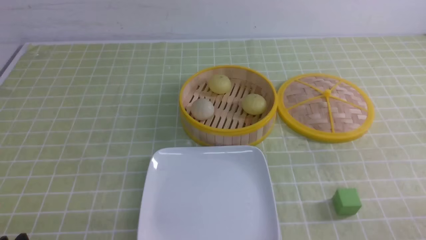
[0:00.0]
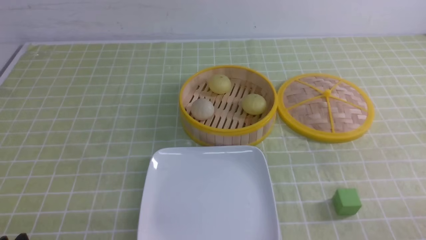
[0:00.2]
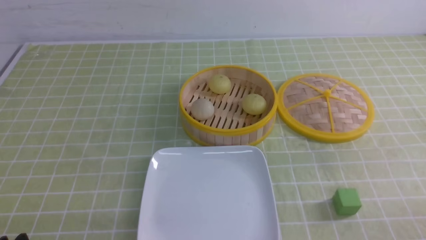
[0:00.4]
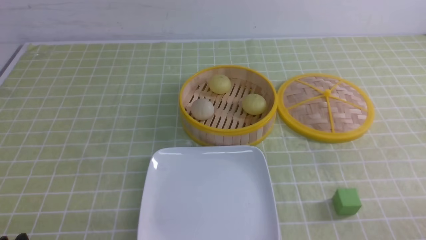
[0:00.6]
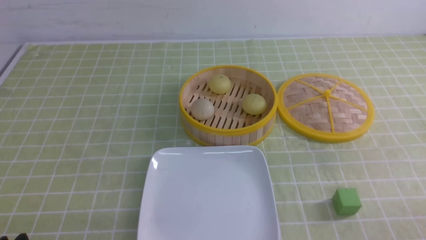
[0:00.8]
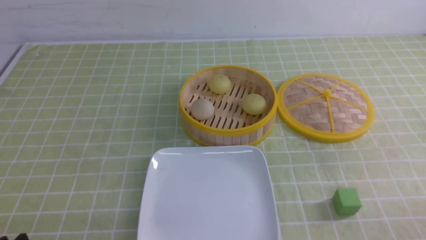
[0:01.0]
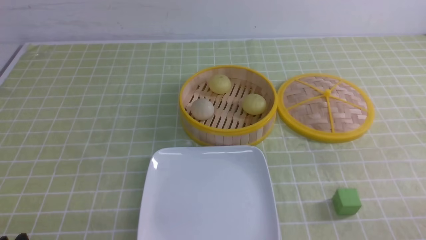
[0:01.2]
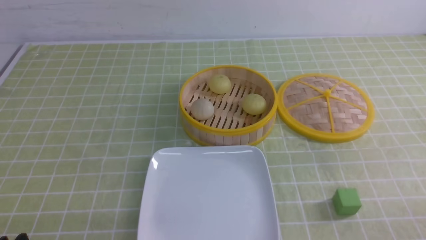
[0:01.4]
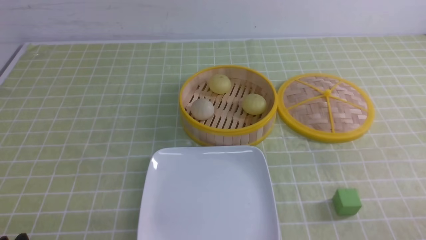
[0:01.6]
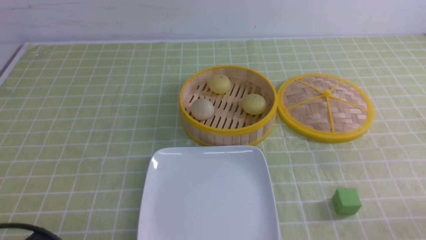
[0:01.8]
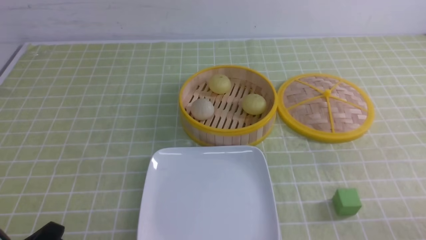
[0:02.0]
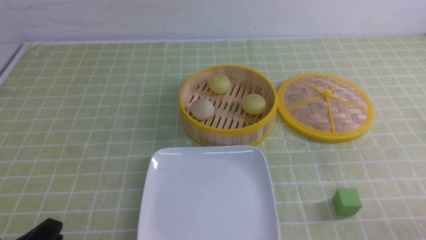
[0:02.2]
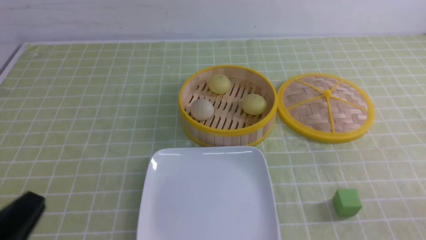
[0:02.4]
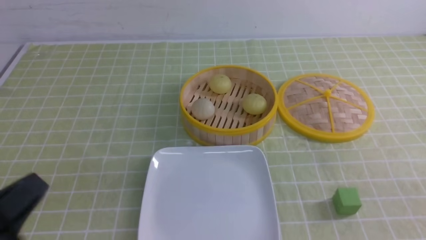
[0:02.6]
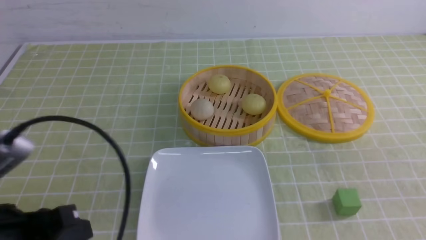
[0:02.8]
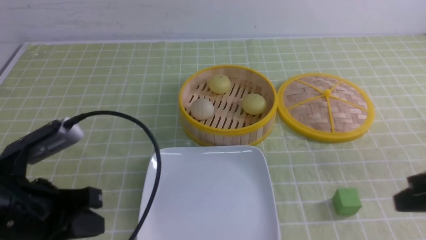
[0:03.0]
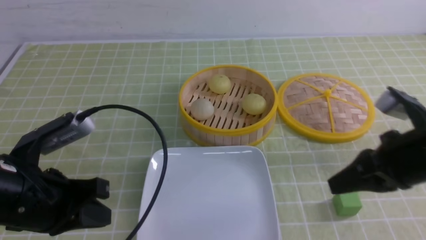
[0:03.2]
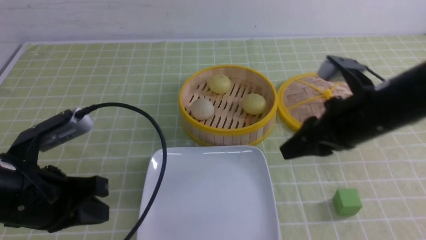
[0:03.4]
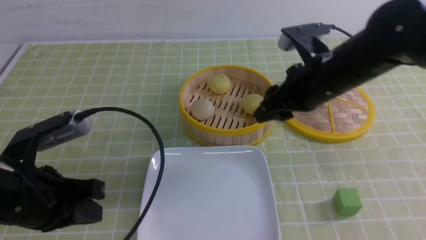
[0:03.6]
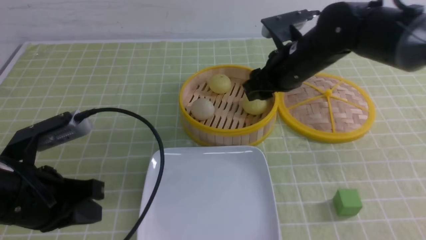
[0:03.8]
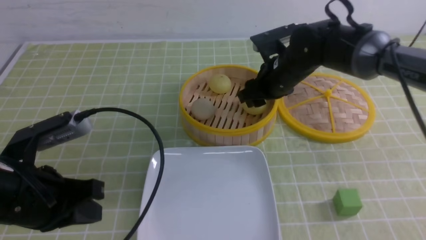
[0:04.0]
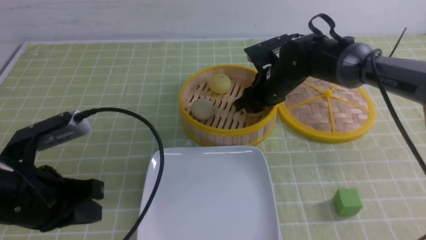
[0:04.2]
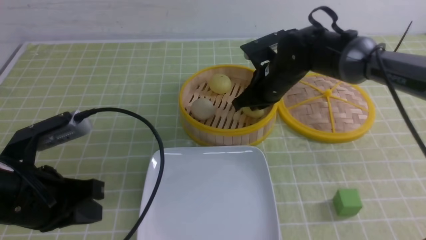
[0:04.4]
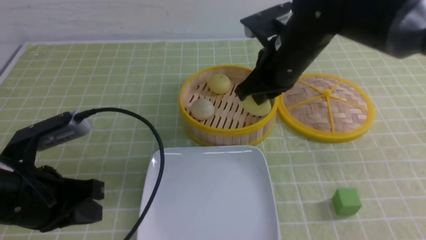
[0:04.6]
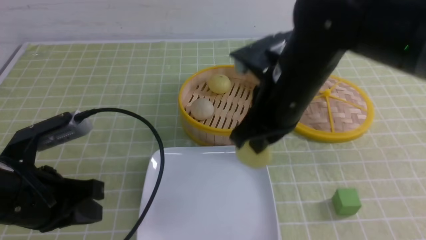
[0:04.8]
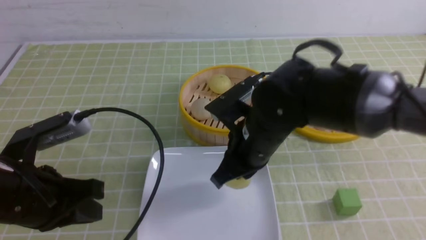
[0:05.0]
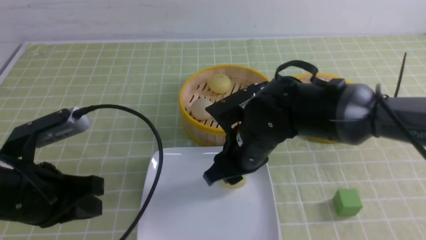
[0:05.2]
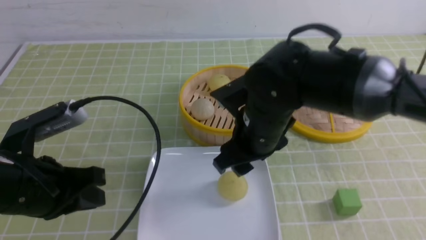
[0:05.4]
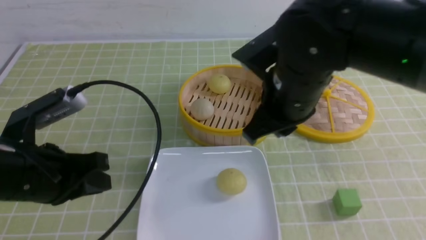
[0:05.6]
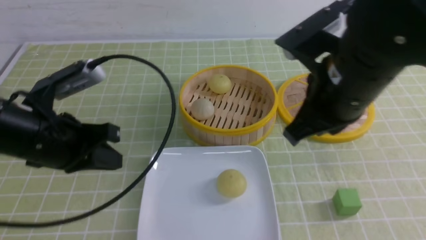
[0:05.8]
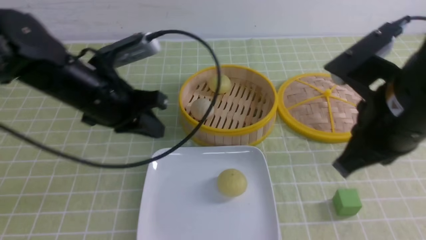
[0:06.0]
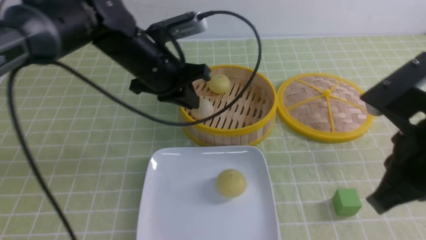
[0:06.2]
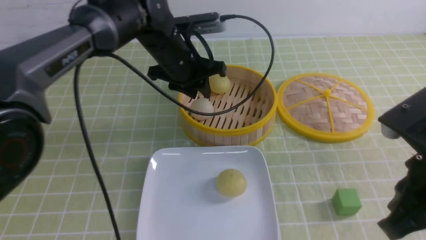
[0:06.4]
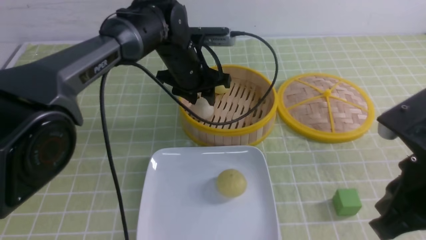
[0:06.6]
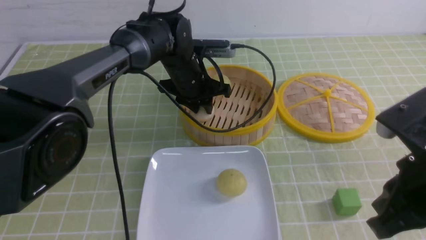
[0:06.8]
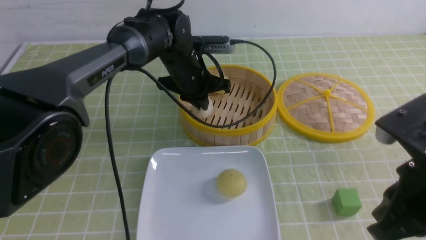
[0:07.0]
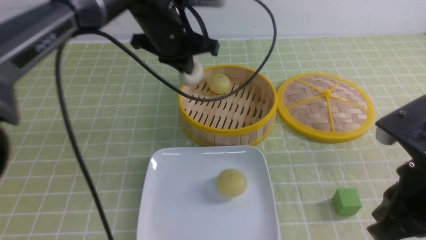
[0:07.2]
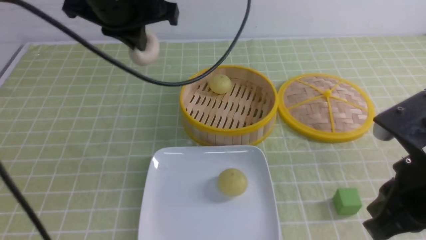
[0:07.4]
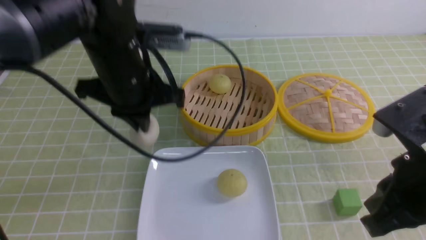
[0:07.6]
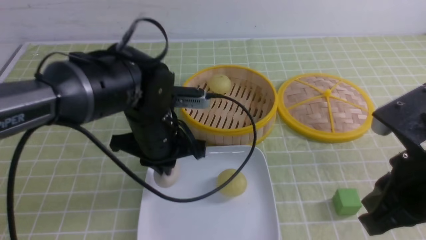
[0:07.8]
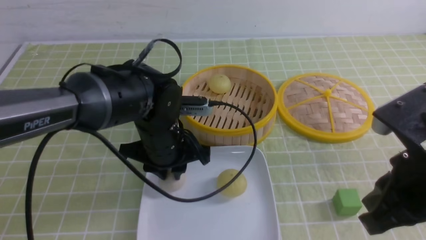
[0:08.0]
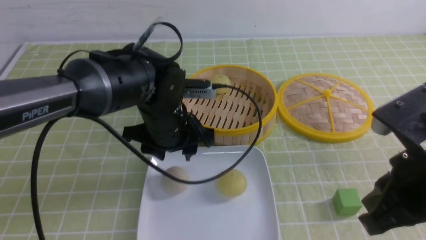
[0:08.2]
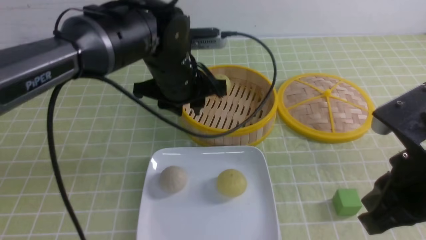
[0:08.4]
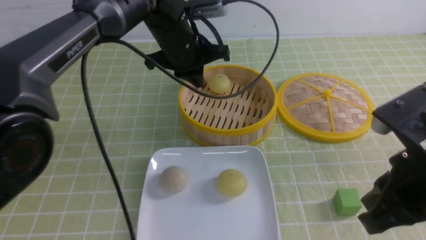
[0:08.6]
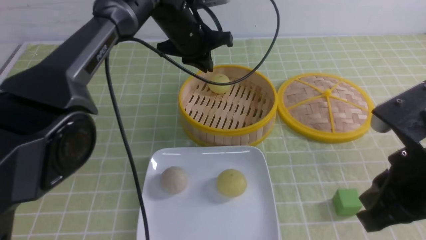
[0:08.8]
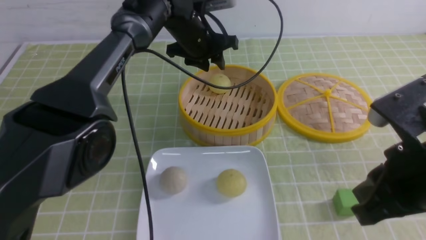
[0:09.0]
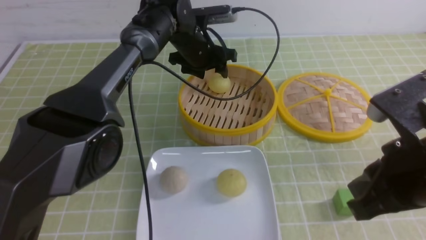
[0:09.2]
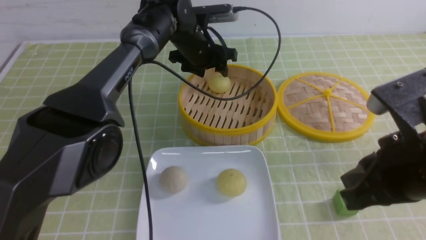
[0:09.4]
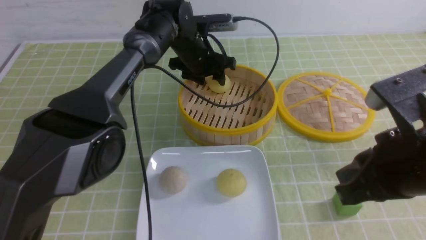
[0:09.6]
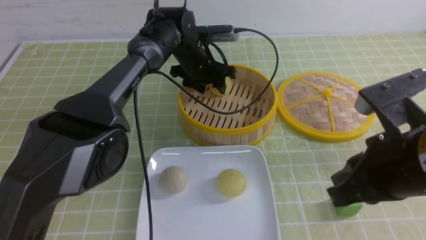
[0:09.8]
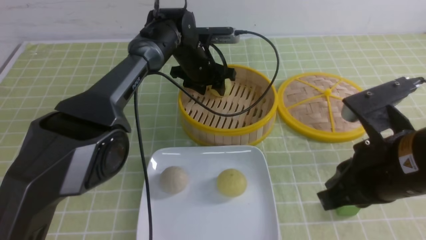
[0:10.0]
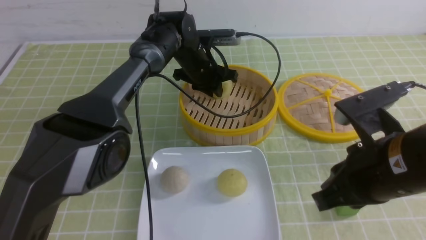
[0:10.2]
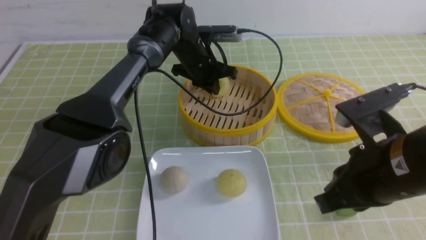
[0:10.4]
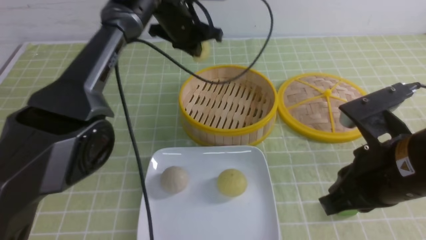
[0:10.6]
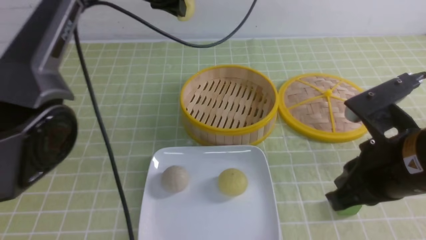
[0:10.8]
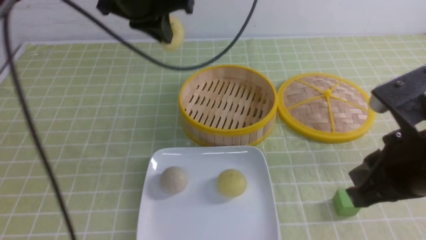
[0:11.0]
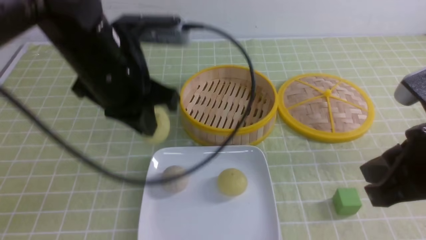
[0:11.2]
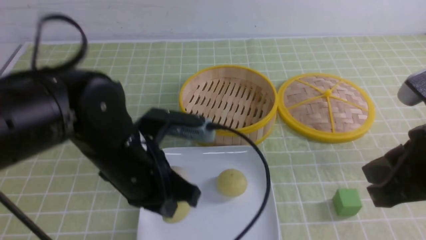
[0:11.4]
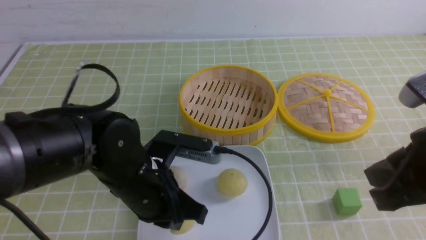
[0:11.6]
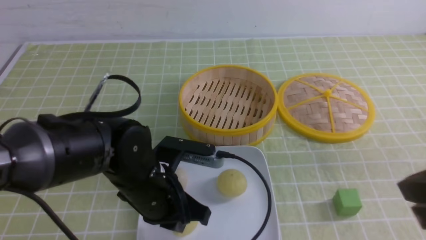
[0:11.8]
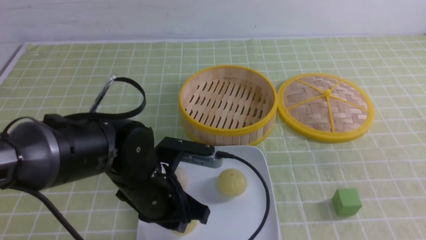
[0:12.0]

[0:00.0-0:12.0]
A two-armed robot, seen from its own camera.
Step, 0:00.0 to 0:04.2: use the right arm to grab the steamed stuffed bun that is closest to it.
Step, 0:04.6 to 0:05.2: use the right arm to put the steamed stuffed bun into the plate.
Step, 0:05.4 to 0:07.0: use the left arm to grab the steamed stuffed bun that is closest to it.
Step, 0:07.2 to 0:08.0: use the left arm to put the steamed stuffed bun into the plate.
Step, 0:08.2 to 0:10.4: use the left arm to grab the steamed stuffed bun that is closest to it.
0:01.6 to 0:03.0: The two grippers go about 15 cm forward and upward. The left gripper closes; the right gripper closes up.
0:03.0 to 0:04.4: The right gripper heads forward and to the left, covering roughly 30 cm, and opens and closes again.
0:04.4 to 0:06.0: The right gripper shifts approximately 20 cm backward and upward, and opens and closes again. Meanwhile the left gripper travels forward and to the right by roughly 15 cm.
0:06.0 to 0:07.6: The left gripper moves up and down over approximately 15 cm, changing direction 2 times, and opens, then closes once more, while the right gripper goes about 5 cm backward.
0:07.6 to 0:09.0: The left gripper moves forward, about 15 cm, and opens up.
0:09.0 to 0:10.4: The left gripper closes.
0:10.4 to 0:12.0: The right gripper heads backward, to the right and upward, covering roughly 15 cm. The left gripper heads backward, covering some 25 cm, and opens its fingers.

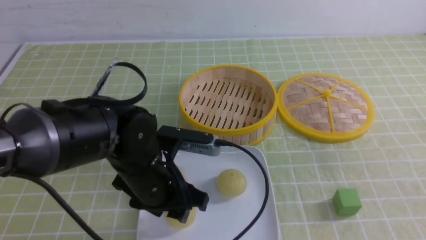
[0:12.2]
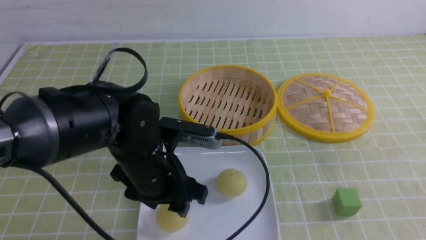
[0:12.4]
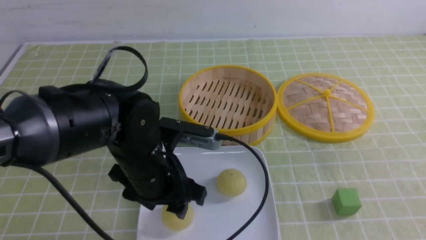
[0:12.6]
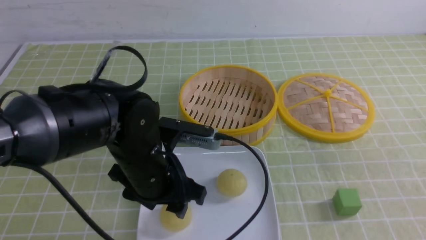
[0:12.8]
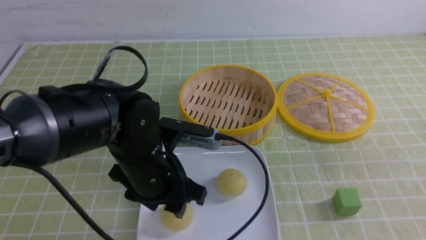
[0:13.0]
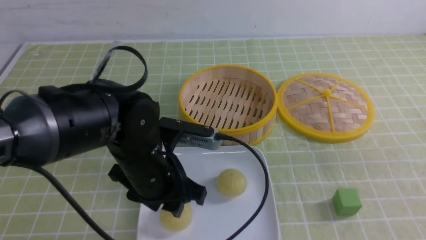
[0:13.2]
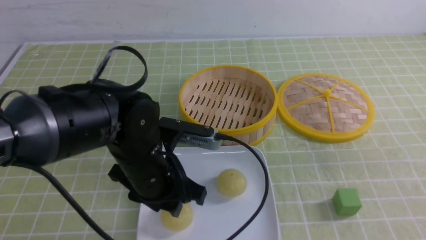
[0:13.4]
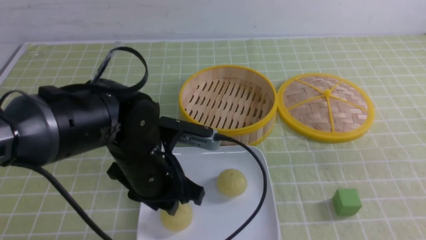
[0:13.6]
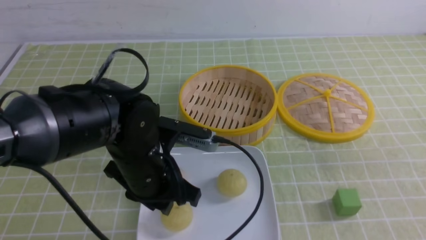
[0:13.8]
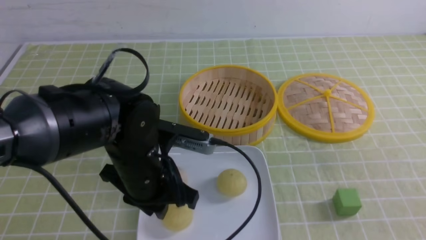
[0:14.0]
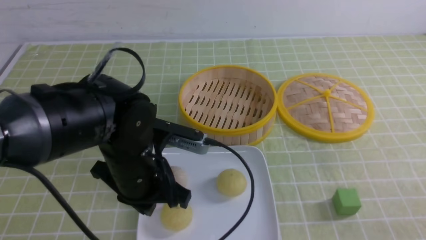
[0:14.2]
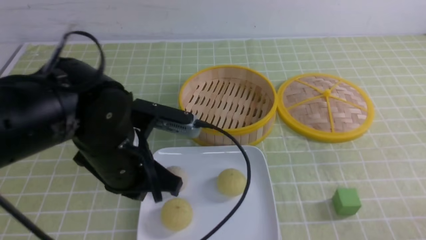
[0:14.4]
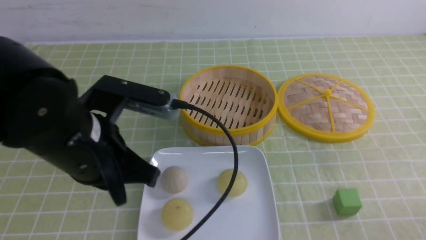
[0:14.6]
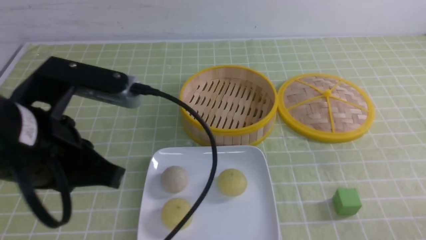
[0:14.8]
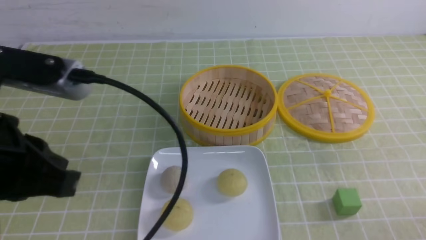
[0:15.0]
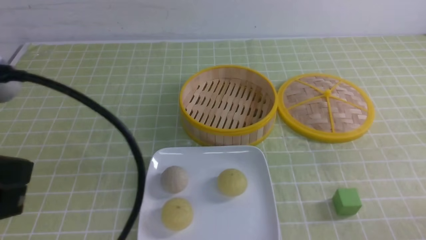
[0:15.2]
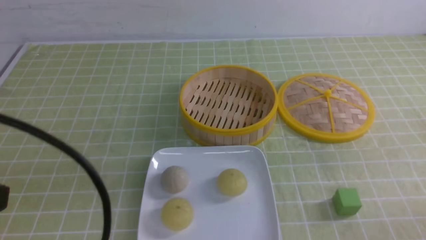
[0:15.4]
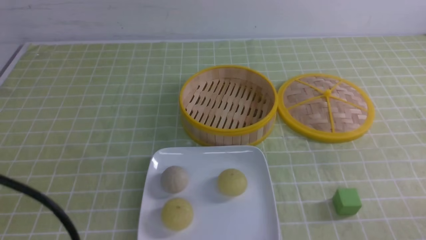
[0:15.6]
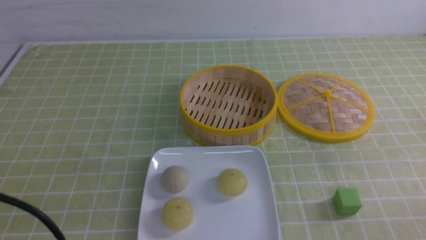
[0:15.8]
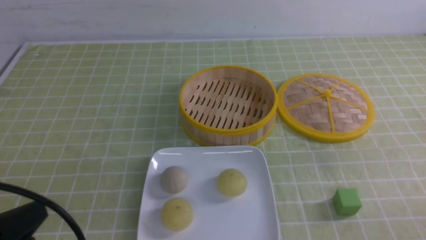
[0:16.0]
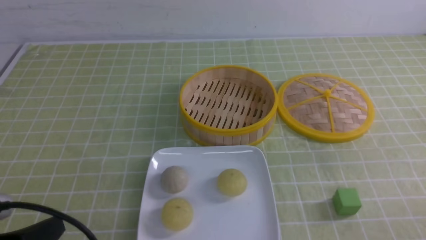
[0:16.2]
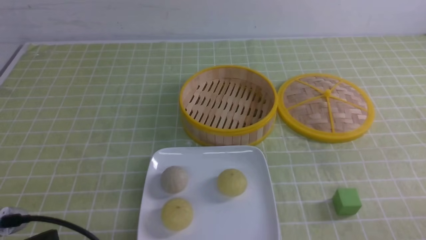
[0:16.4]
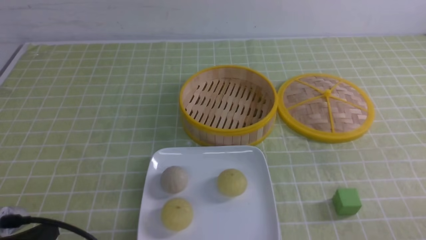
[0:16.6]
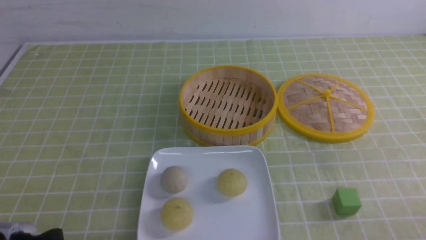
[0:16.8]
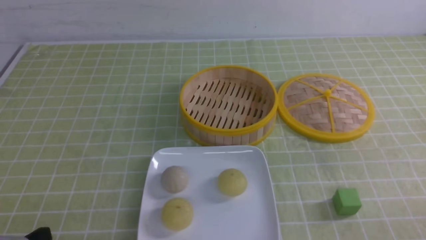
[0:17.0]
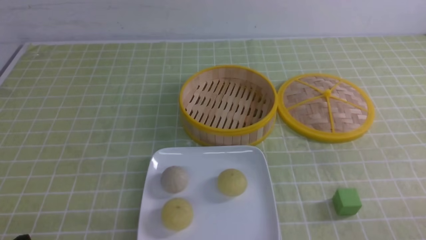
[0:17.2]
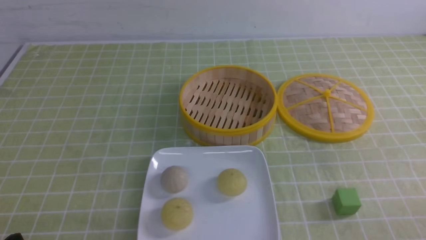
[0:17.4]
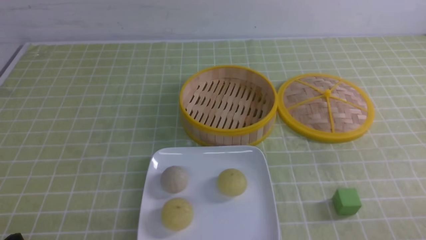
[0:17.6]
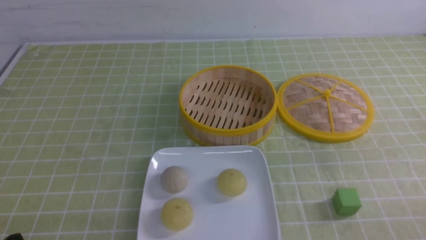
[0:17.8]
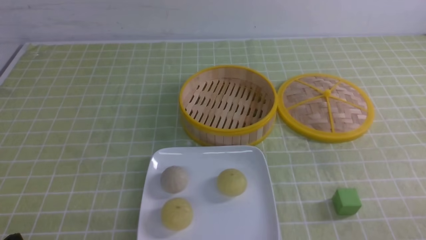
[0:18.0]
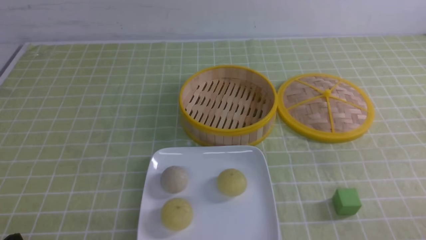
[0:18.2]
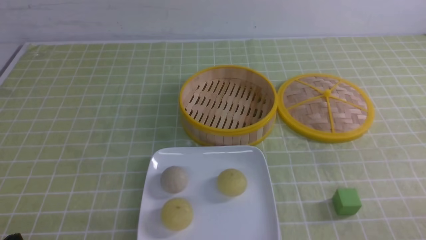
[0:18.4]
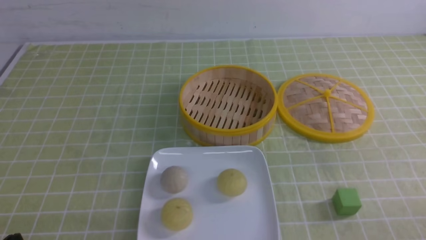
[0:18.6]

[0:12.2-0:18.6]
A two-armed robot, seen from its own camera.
0:12.2 to 0:13.8: The right gripper moves downward, about 5 cm.
0:13.8 to 0:15.4: The left gripper travels backward, upward and to the left by some 25 cm, and closes its fingers. Meanwhile the right gripper travels downward by approximately 15 cm.
0:15.4 to 0:17.0: The left gripper travels downward by roughly 20 cm.
